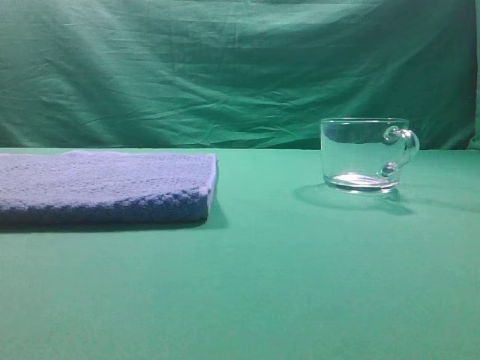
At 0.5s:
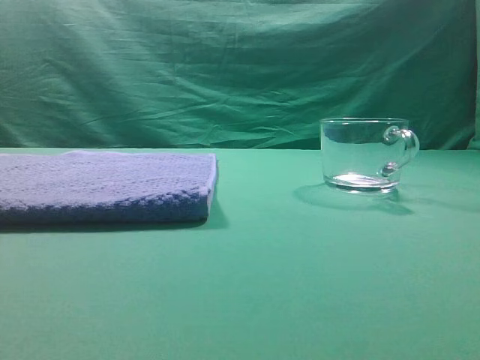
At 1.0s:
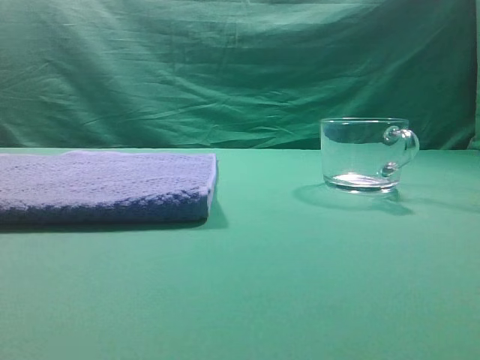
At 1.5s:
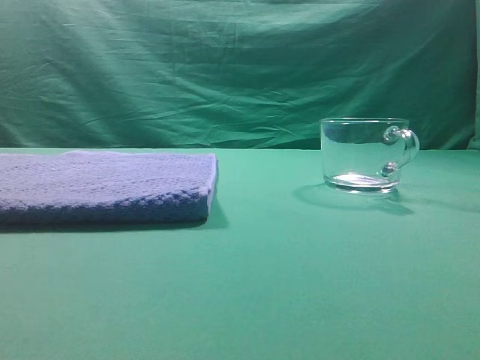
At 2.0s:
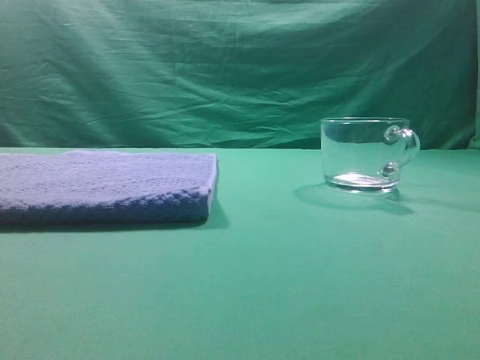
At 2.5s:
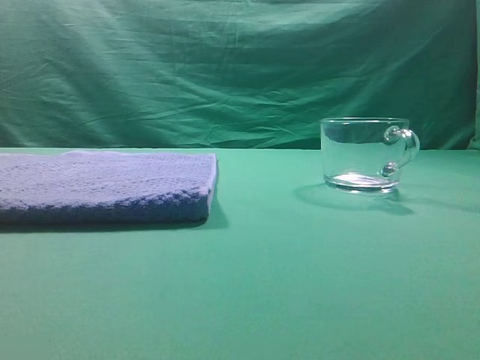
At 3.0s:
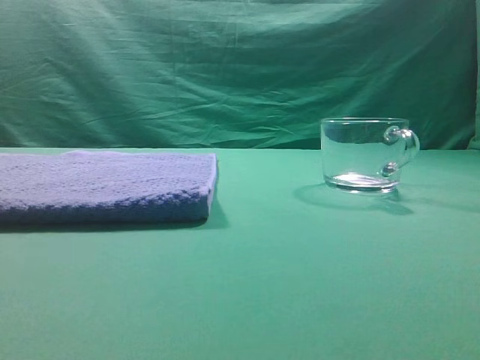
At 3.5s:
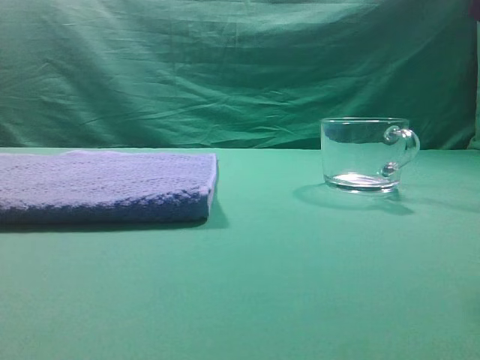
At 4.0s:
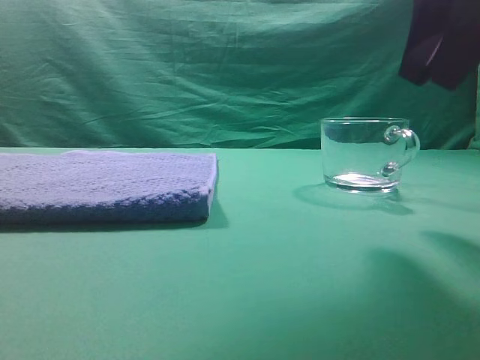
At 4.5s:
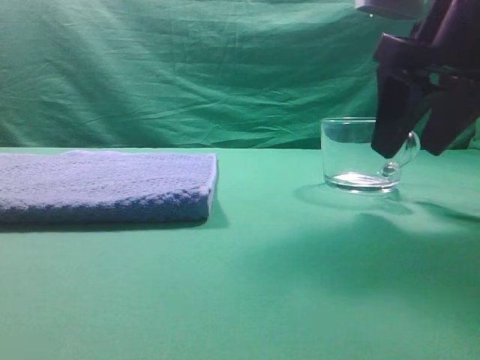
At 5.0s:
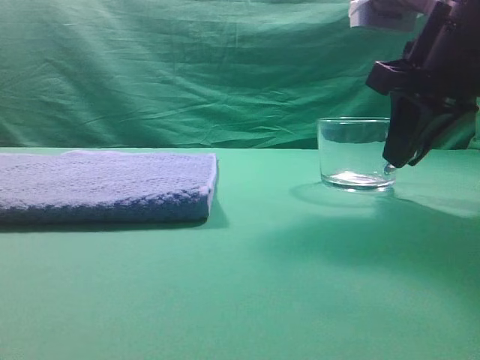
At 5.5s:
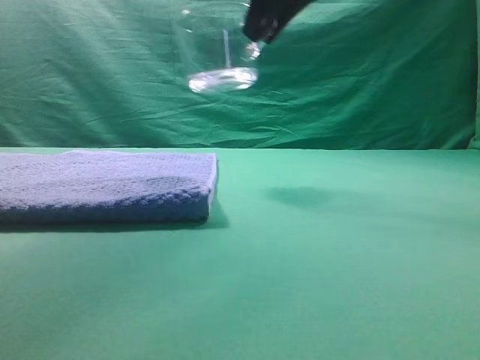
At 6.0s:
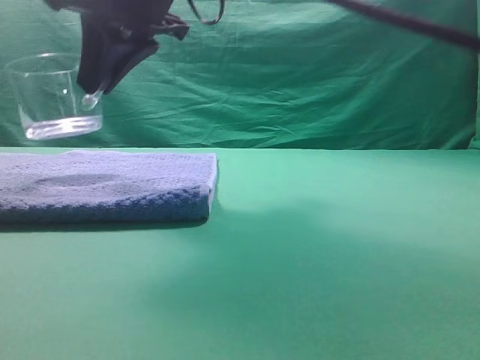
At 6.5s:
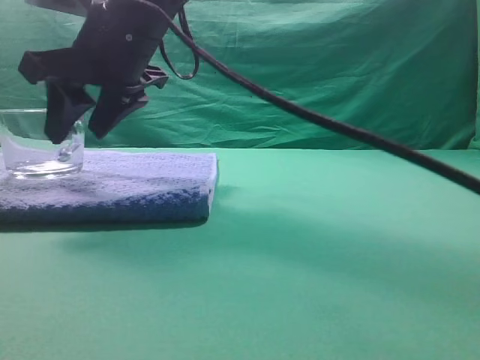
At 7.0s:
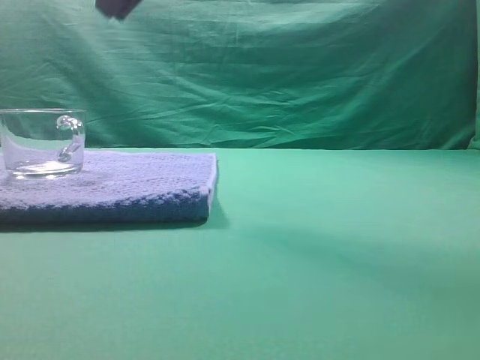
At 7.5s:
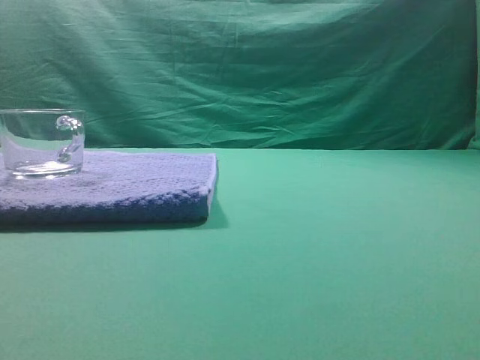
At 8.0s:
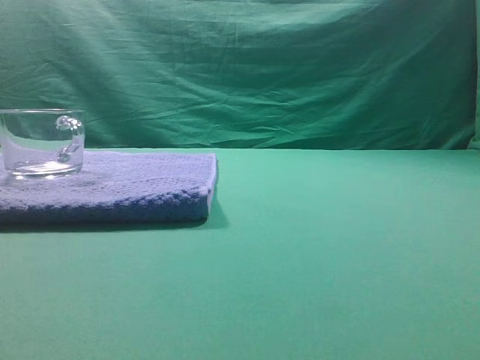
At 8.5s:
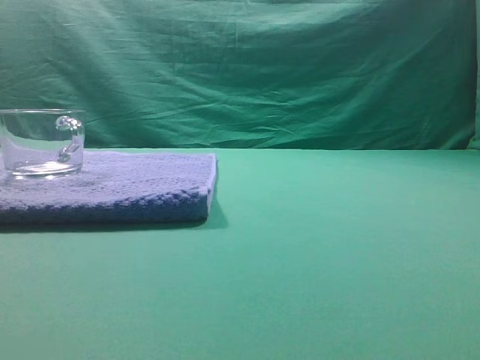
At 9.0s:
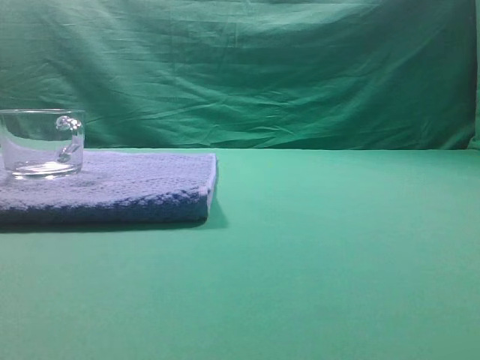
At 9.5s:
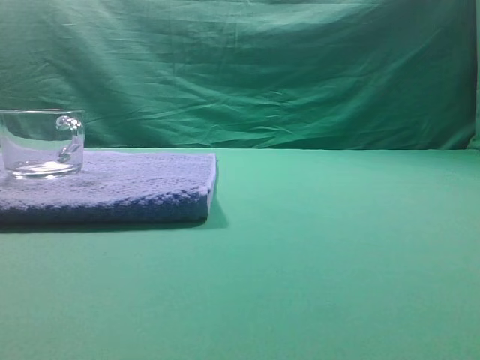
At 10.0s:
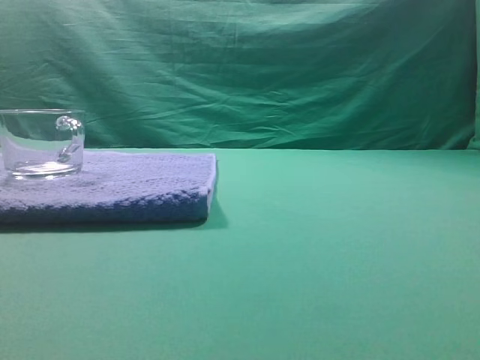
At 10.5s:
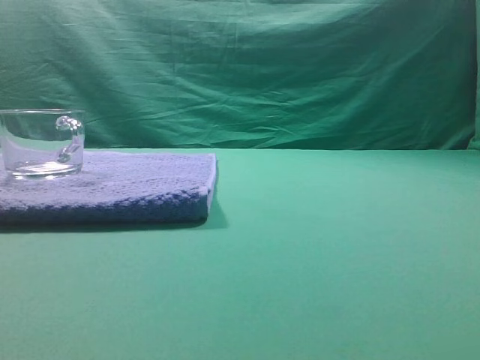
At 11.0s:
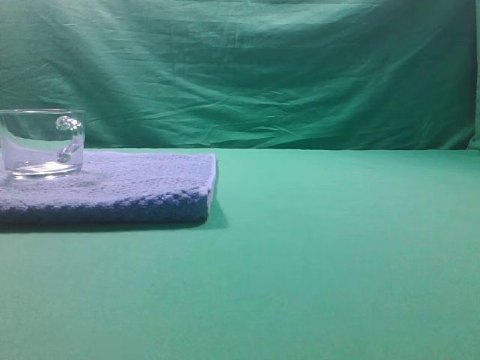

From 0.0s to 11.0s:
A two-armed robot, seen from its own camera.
Task of the whole recording: grasp the transparent glass cup and place it within the blue towel.
Step, from 0.0s to 5.0s: Grasp the transparent glass cup.
Step, from 5.5s to 6.5s: Place the glass cup on the blue zone.
